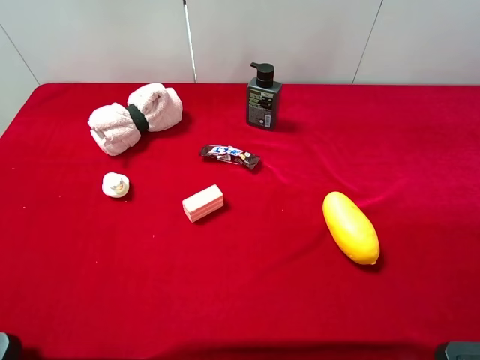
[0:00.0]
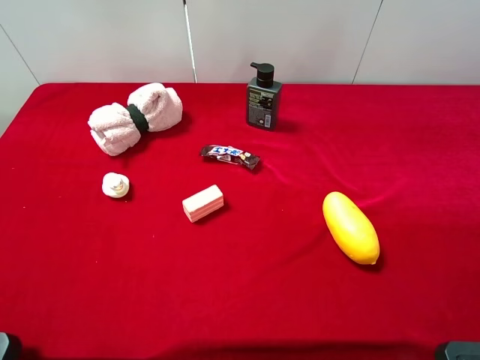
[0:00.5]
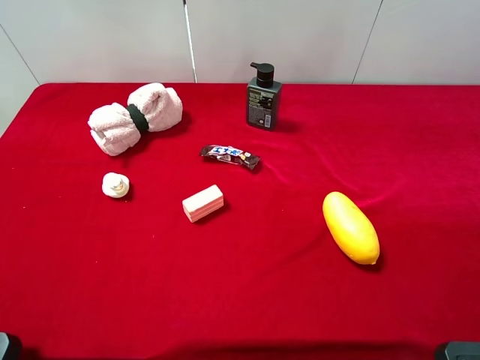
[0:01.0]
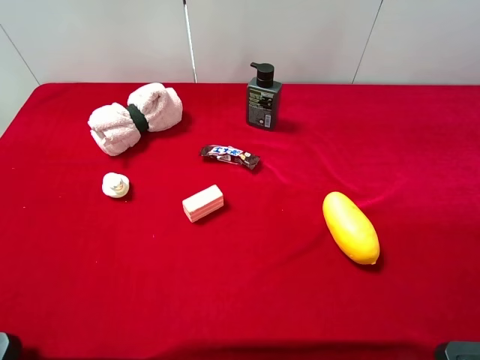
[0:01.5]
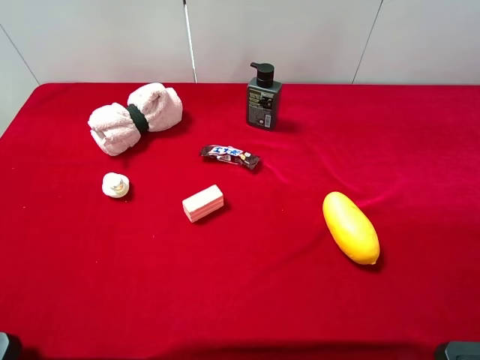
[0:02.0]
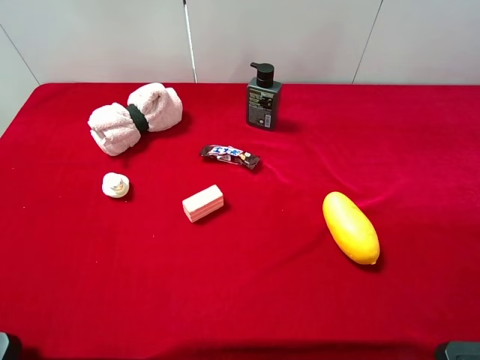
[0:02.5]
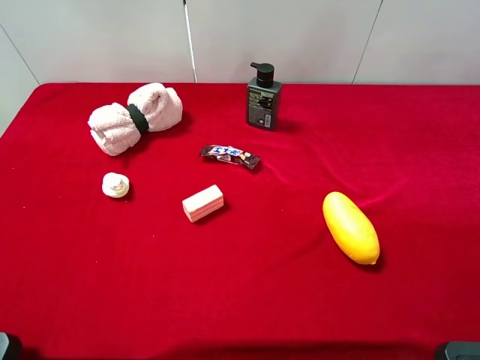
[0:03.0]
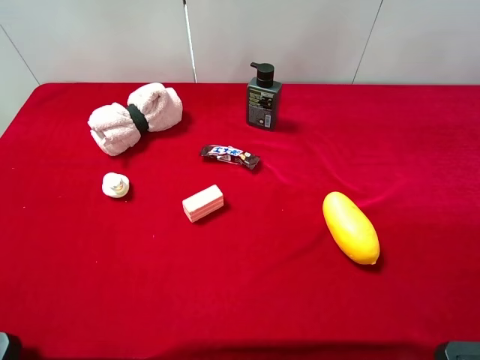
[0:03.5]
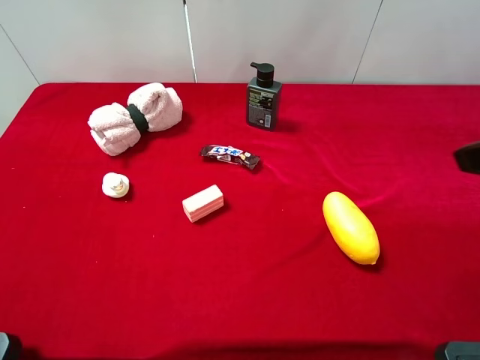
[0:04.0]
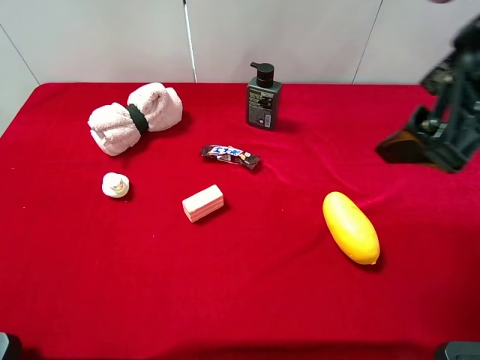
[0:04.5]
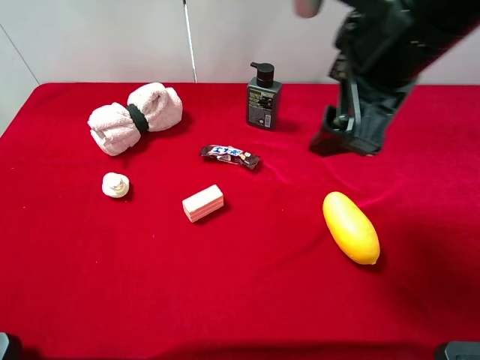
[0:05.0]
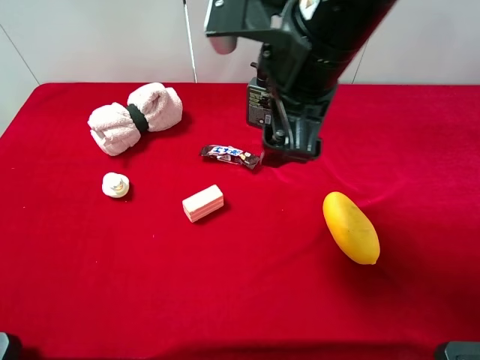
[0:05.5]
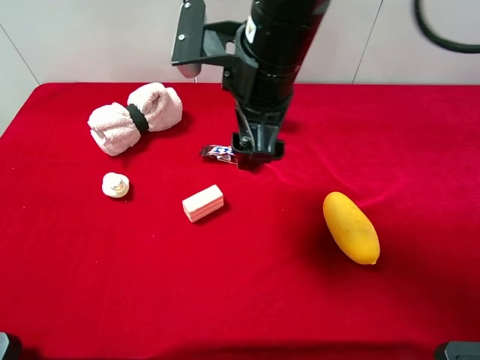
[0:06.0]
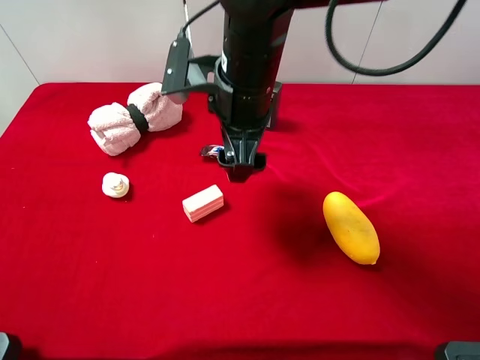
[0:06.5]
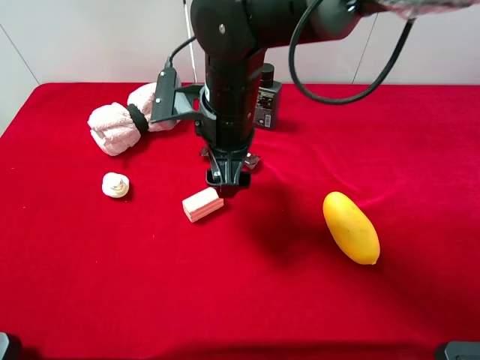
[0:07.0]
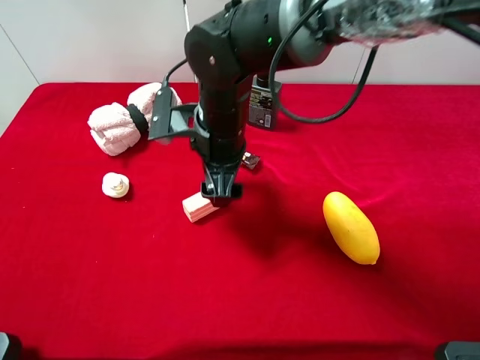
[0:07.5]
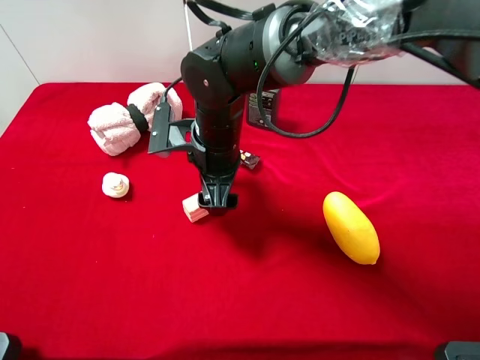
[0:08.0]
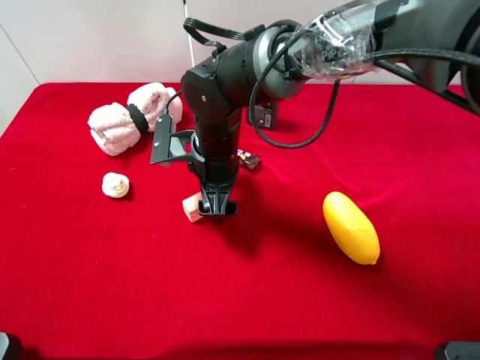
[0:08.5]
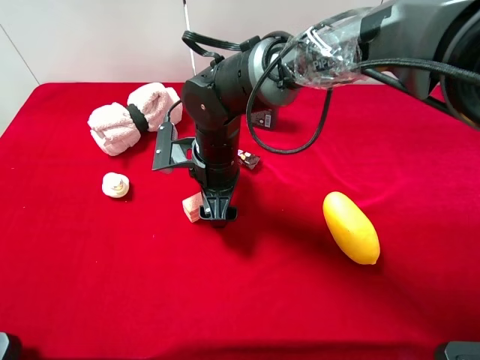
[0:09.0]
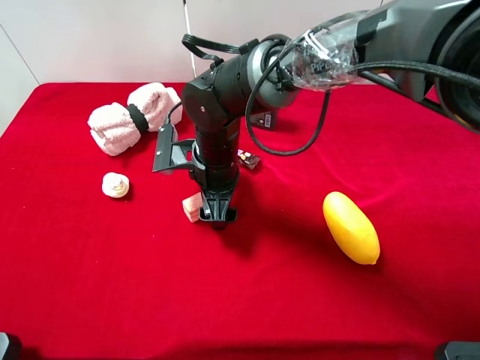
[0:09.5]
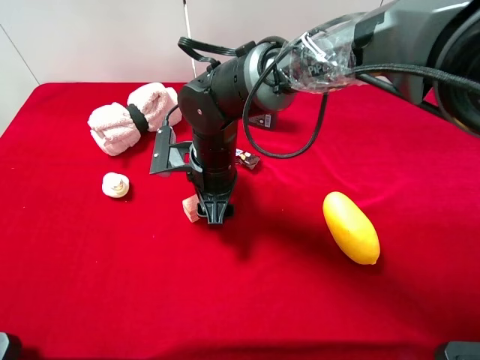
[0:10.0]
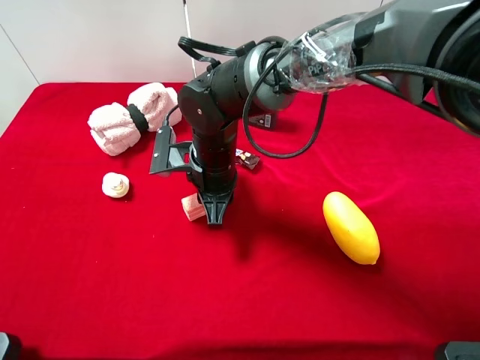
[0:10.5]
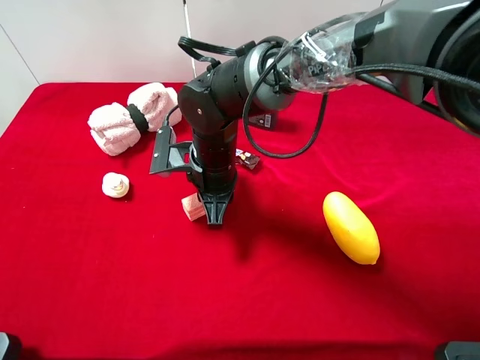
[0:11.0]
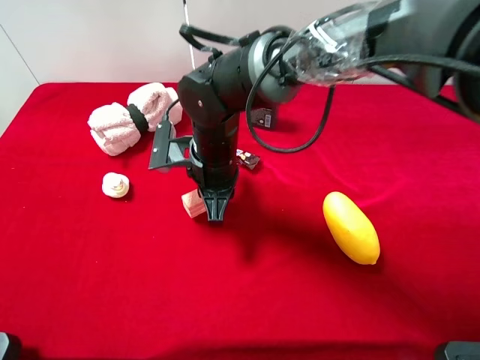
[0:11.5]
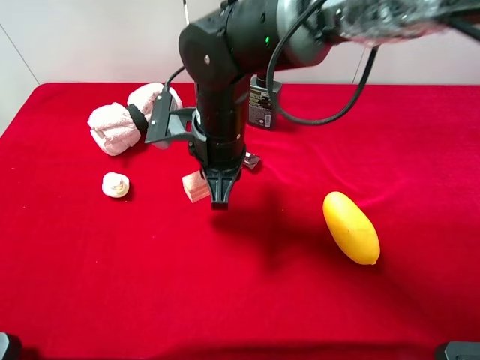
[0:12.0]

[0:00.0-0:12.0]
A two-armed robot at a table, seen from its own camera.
Task of the whole recording: the gripper move the object.
Step, 0:00.0 to 0:10.5: Grasp the pink cake with the right gripper.
0:00.0 to 0:02.0: Both grippers stay put.
0:04.0 to 0:06.0: The right gripper goes some 25 cm to the left and forward.
0:06.0 to 0:08.0: The right gripper goes roughly 15 cm downward and to the left.
0:08.0 to 0:10.0: The grippers stay close to where they were, moving slightly.
0:10.0 to 0:12.0: The right gripper heads upward, covering about 5 cm, and closes its fingers.

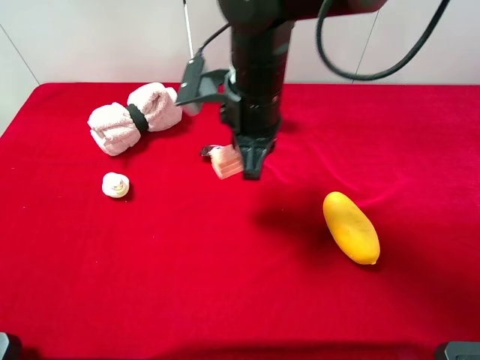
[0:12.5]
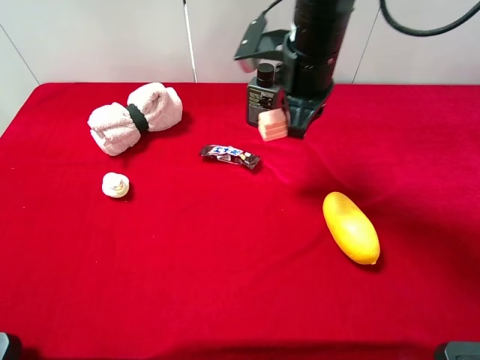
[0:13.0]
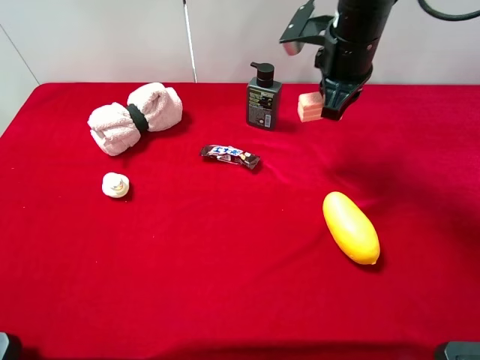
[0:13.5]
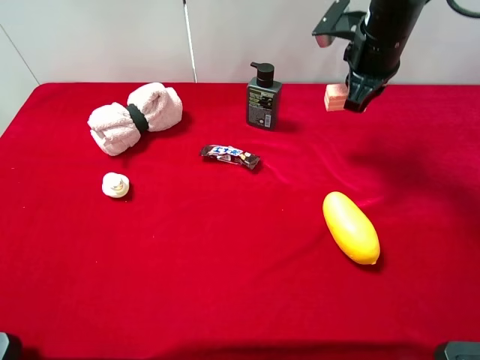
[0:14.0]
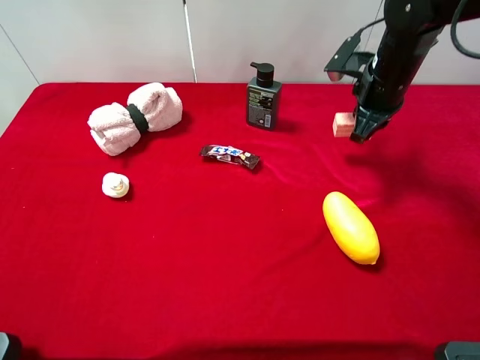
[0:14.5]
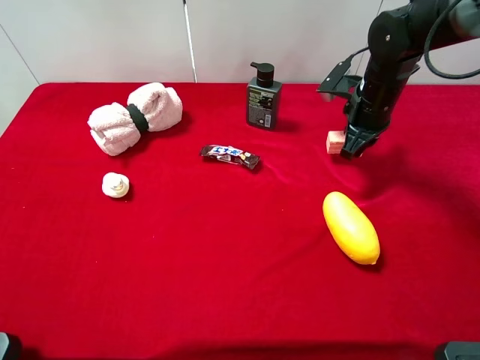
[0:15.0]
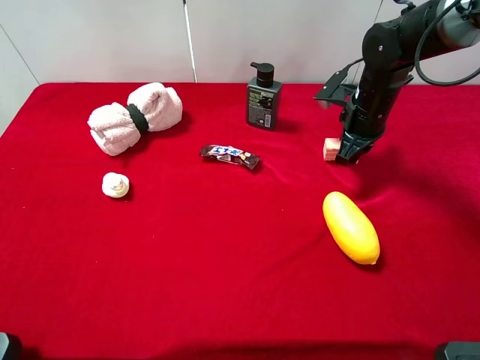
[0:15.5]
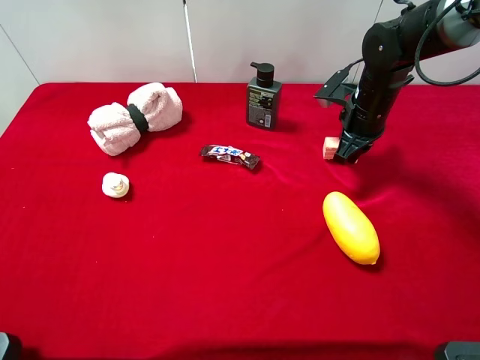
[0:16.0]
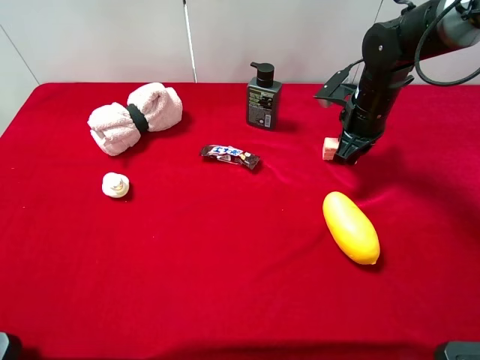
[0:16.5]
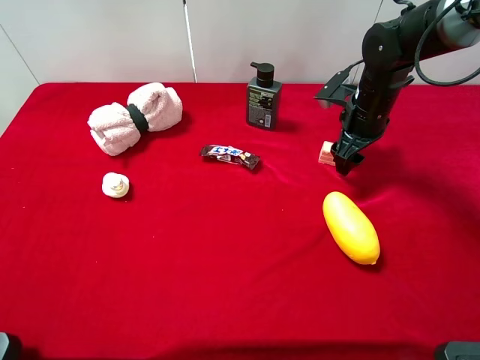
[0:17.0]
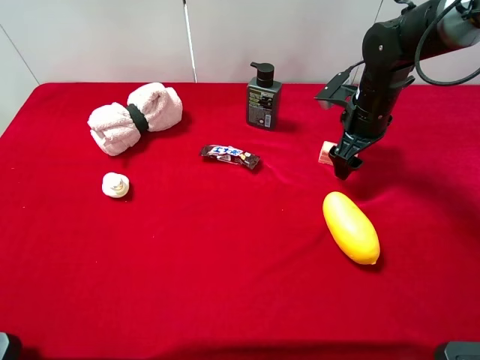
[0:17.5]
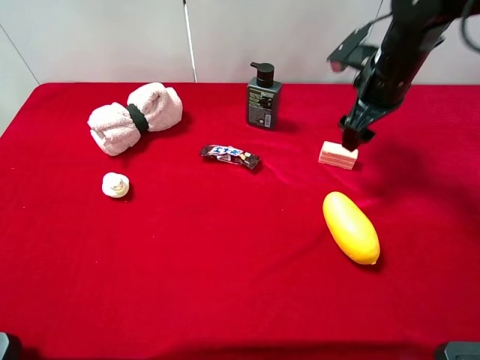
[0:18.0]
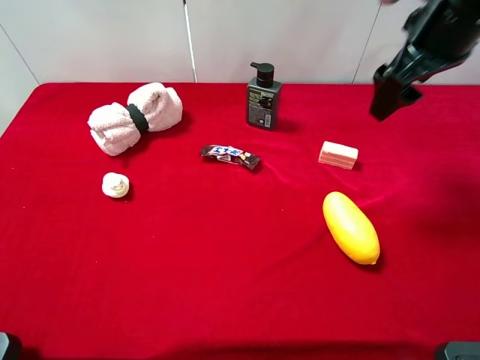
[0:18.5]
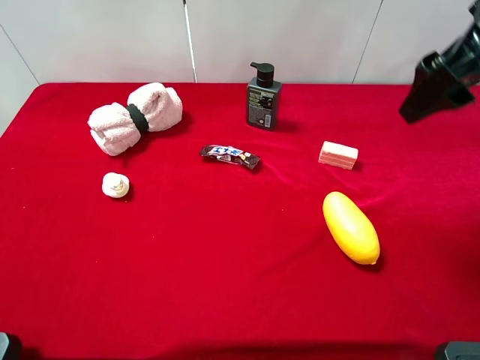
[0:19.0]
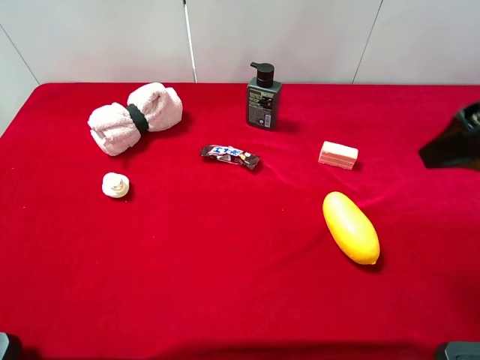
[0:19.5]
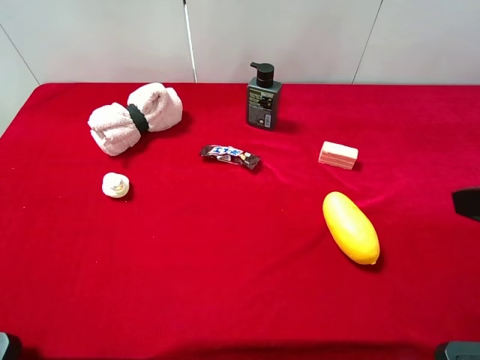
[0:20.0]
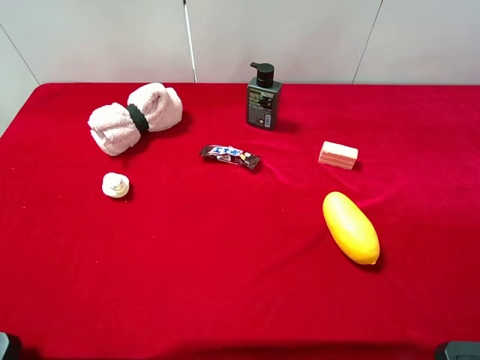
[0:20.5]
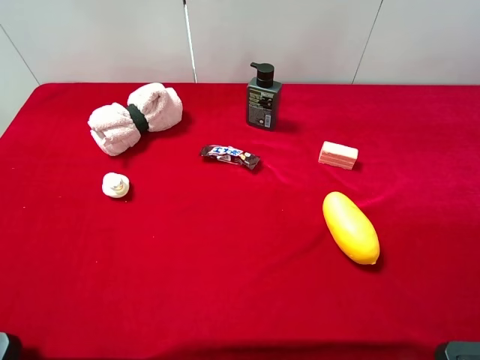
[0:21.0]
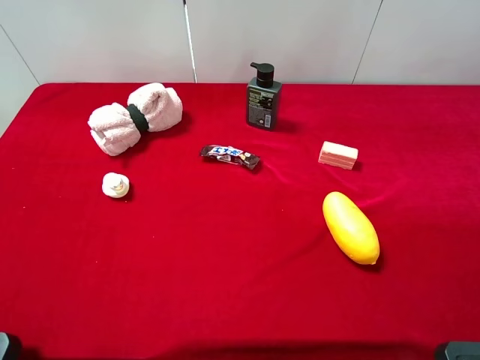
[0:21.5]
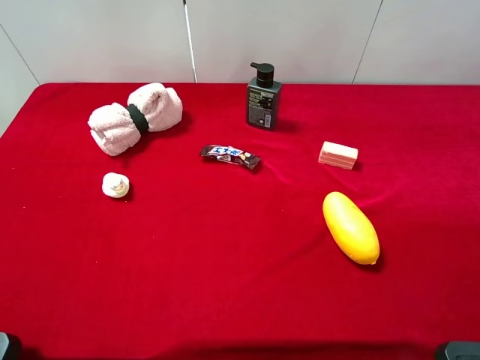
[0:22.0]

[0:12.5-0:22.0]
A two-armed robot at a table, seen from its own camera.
Task of the whole recording: the gripper move the object.
Step, 0:12.5 to 0:18.0: Place the pink cake on the table with the right gripper.
0:12.5 to 0:14.5: The right gripper moves to the right and forward, roughly 20 cm.
0:14.5 to 0:16.5: There are only small adjustments of the grippers.
0:16.5 to 0:18.0: The right gripper travels upward by roughly 10 cm, and opens up.
0:18.0 to 0:20.0: The right gripper goes roughly 30 cm backward.
